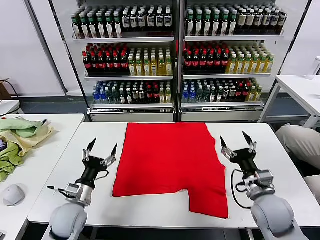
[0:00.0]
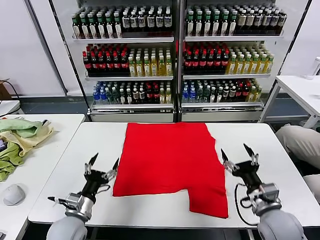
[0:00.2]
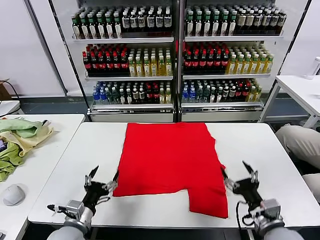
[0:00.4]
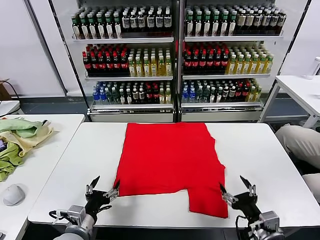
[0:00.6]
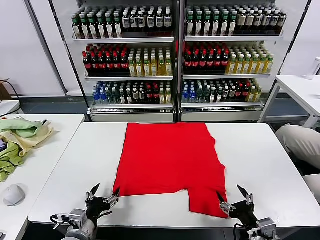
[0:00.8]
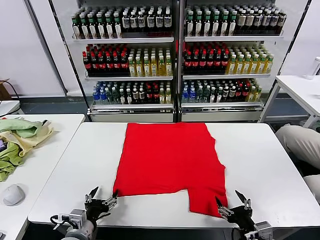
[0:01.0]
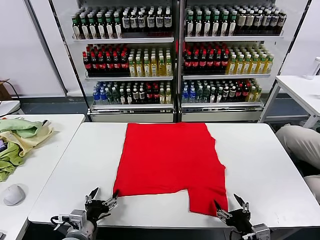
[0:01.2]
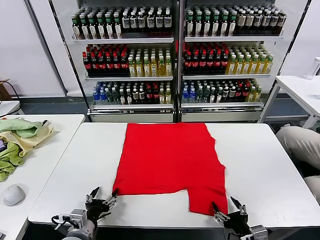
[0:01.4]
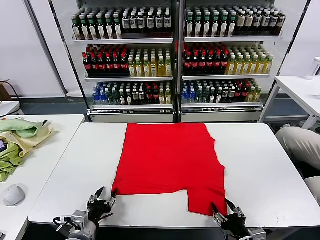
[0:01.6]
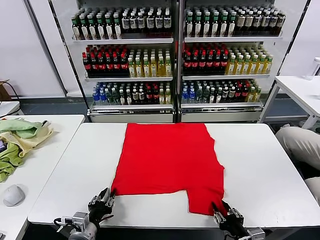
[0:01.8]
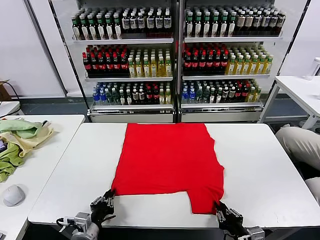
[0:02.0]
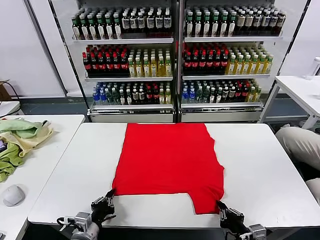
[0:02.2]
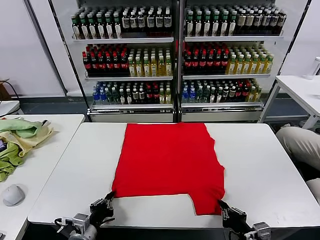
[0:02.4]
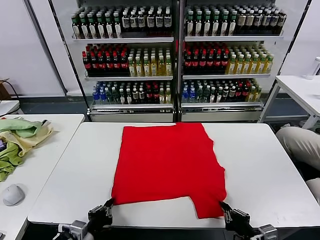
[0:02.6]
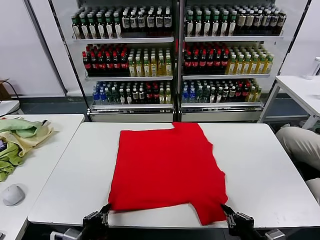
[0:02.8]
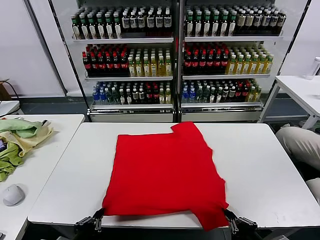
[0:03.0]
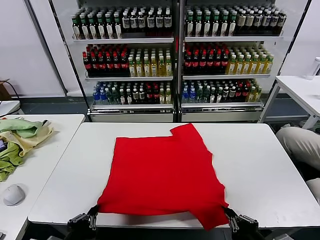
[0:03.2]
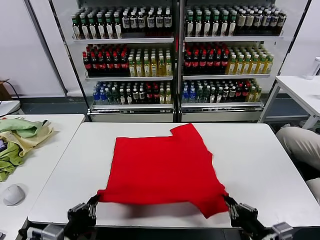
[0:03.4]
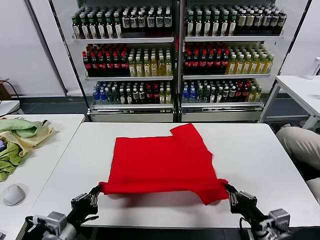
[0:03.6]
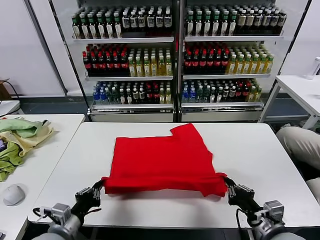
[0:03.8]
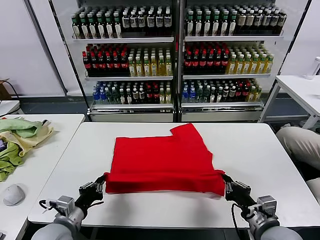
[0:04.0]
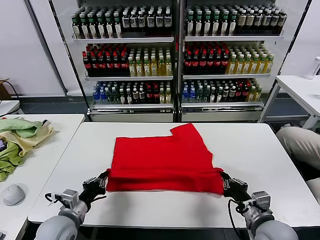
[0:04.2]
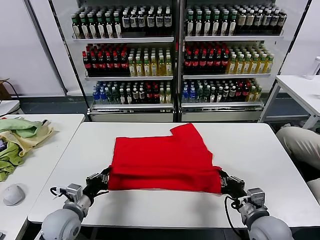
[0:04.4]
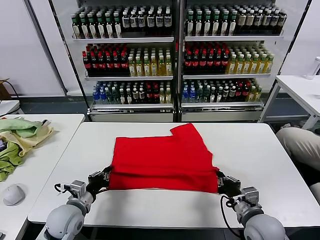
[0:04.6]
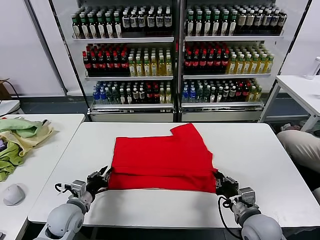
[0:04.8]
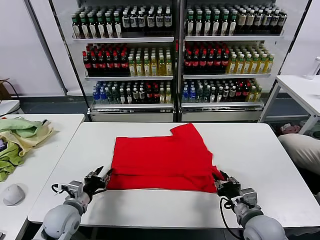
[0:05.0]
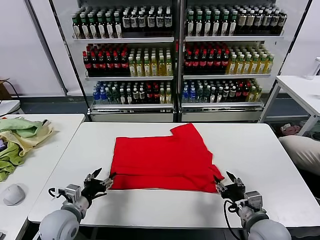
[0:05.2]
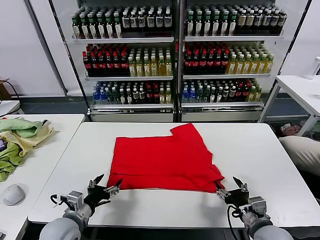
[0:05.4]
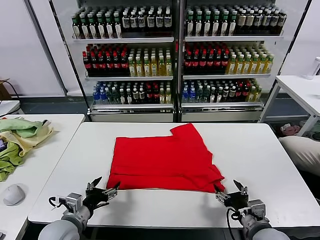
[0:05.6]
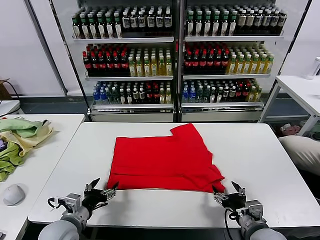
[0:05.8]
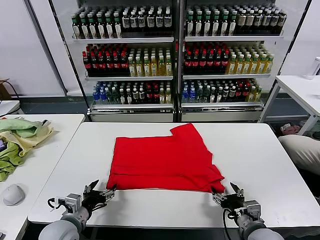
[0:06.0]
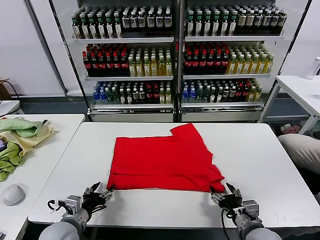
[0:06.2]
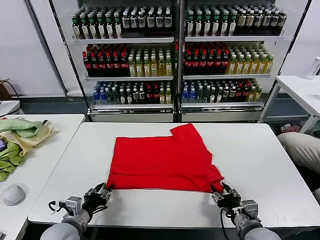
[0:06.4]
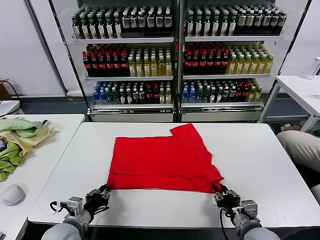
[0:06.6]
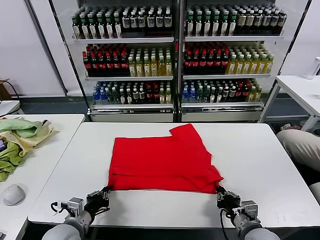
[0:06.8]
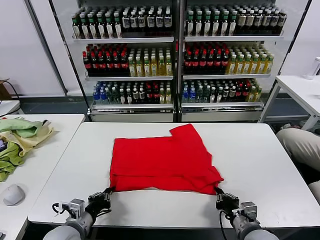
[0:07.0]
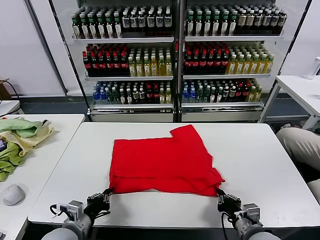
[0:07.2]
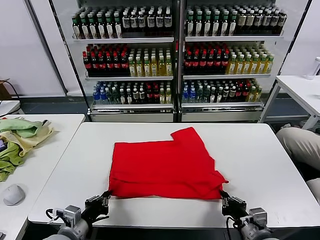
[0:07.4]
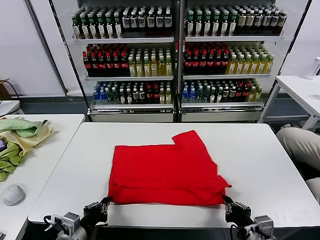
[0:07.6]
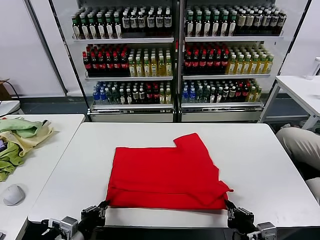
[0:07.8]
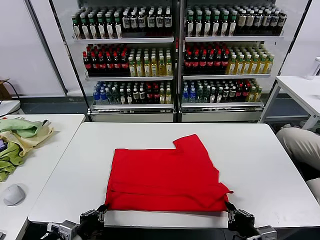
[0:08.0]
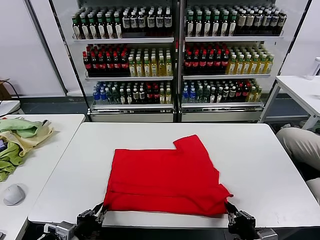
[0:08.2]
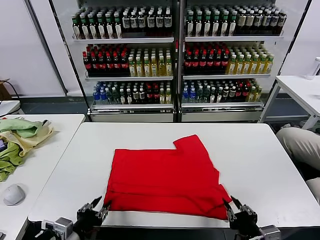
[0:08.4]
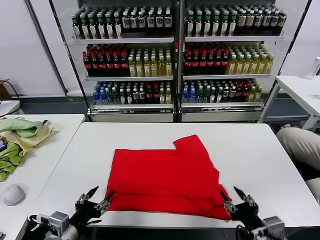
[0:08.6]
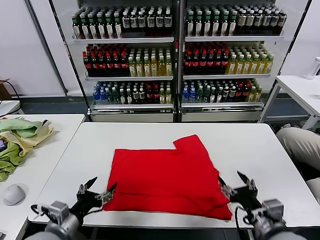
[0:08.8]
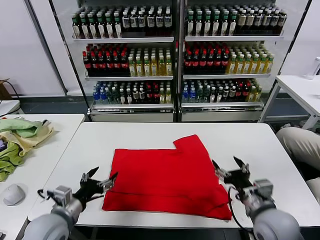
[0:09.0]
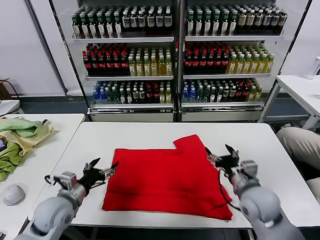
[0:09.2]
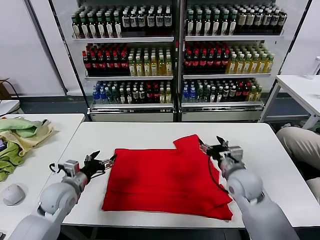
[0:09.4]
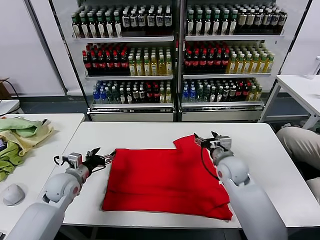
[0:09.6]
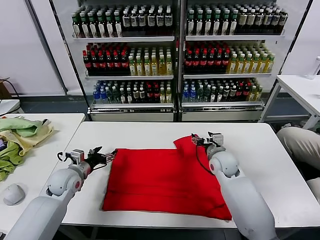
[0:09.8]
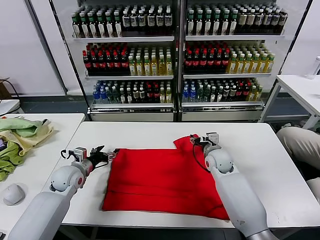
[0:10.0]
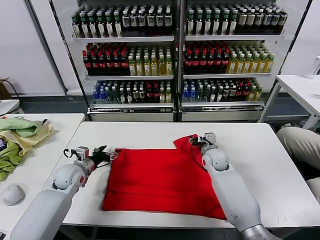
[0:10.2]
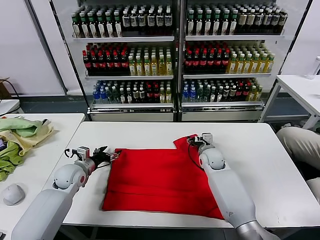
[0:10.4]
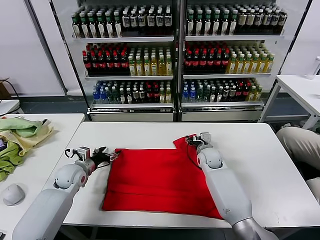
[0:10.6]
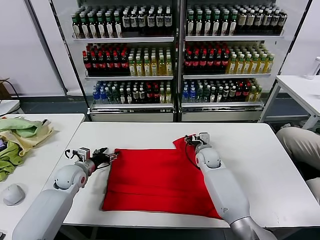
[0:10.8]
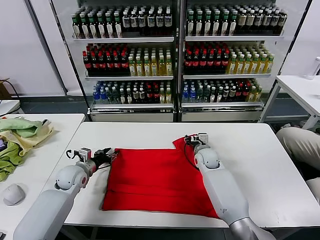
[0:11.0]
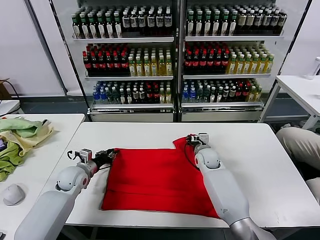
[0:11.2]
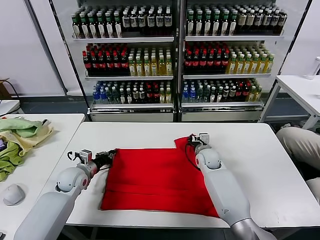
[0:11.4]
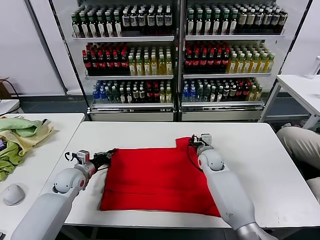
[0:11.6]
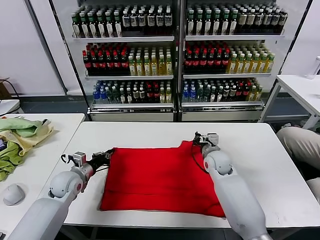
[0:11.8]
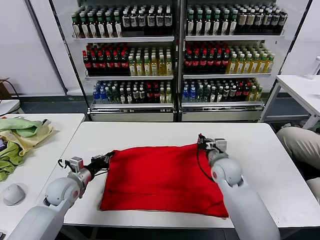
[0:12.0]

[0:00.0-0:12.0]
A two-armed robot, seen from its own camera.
Task of the whole recording: fold and organize the clothes.
Step, 0:00.0 to 0:02.2: use both grippers simultaneously to clamp the lower edge of the clothing fabric.
Step, 0:02.4 to 0:05.0: use both grippers to drag the lower edge of the fabric forward and fold it over the upper edge.
Step, 0:05.2 to 0:08.4: Drag the clothes downward with both gripper.
Step, 0:08.6 to 0:11.4: use both grippers simultaneously to clamp the upper edge of the clothing fabric.
0:01.6 to 0:03.0: The right gripper moves upward, about 10 cm, and closes up. The left gripper heads upward and backward, covering roughly 15 cm, and closes up.
0:03.0 to 0:04.4: Both grippers travel together forward, some 15 cm.
0:04.4 to 0:06.0: The left gripper opens up, while the right gripper opens its fingers.
0:06.0 to 0:07.6: Both grippers travel together backward, about 5 cm. The left gripper closes its fingers; the right gripper closes.
0:07.6 to 0:09.0: The left gripper shifts some 10 cm forward, and opens, while the right gripper moves forward, about 15 cm, and opens its fingers.
0:09.0 to 0:10.4: Both grippers travel together forward, approximately 20 cm.
0:10.4 to 0:12.0: The left gripper goes about 5 cm backward, and closes up. Meanwhile the right gripper travels backward and upward by roughly 15 cm, and closes its fingers.

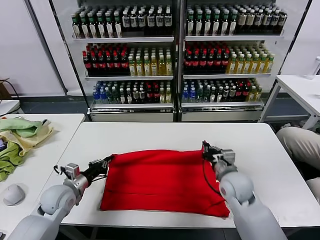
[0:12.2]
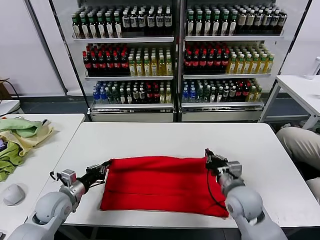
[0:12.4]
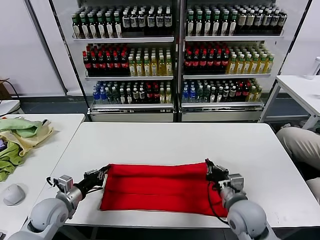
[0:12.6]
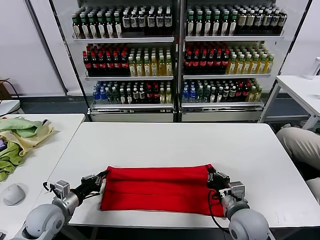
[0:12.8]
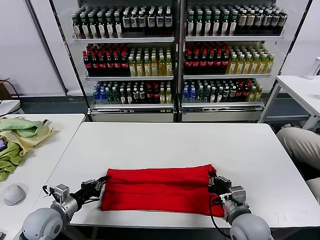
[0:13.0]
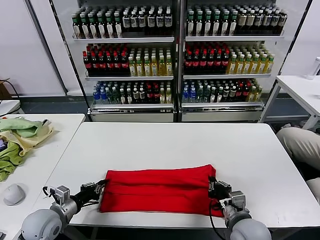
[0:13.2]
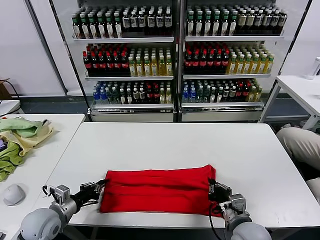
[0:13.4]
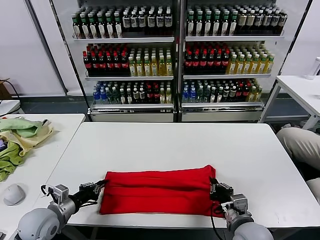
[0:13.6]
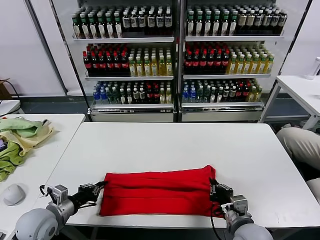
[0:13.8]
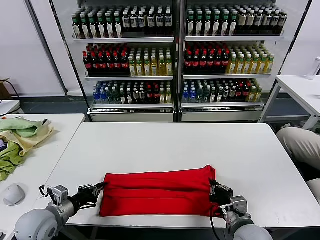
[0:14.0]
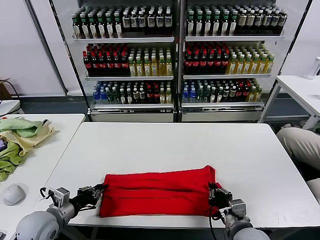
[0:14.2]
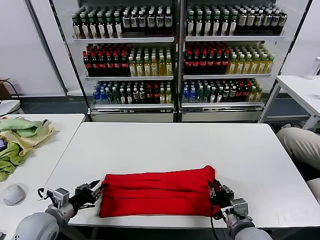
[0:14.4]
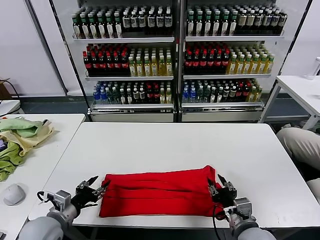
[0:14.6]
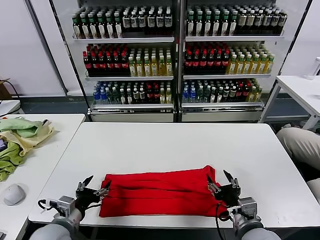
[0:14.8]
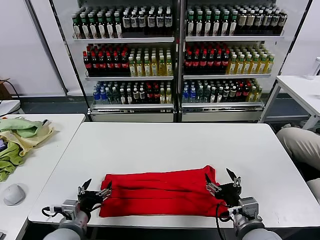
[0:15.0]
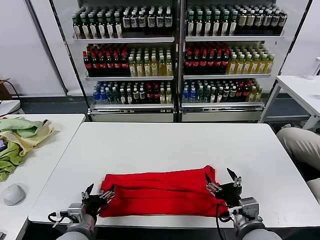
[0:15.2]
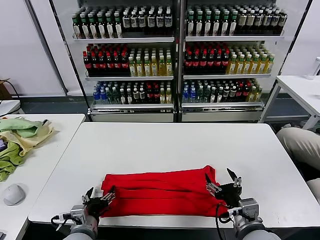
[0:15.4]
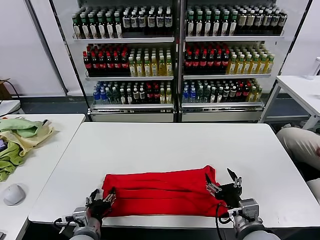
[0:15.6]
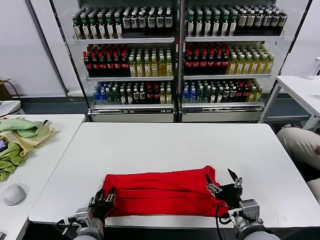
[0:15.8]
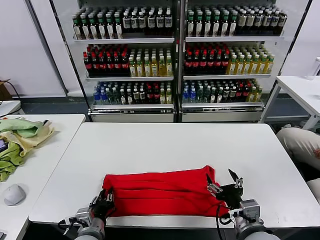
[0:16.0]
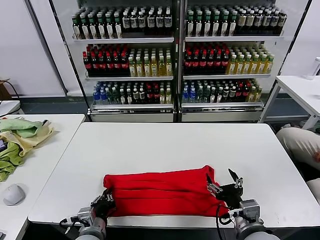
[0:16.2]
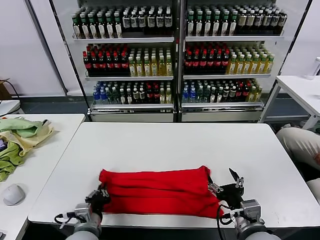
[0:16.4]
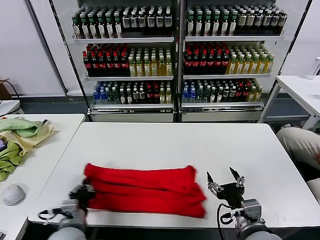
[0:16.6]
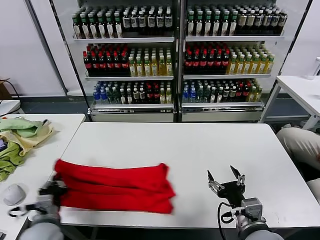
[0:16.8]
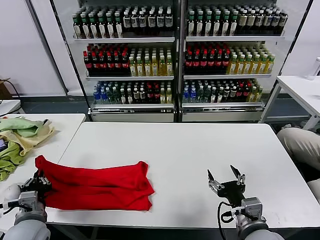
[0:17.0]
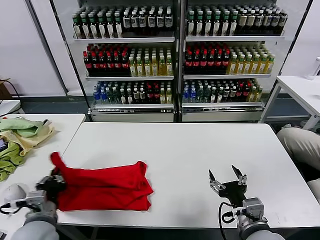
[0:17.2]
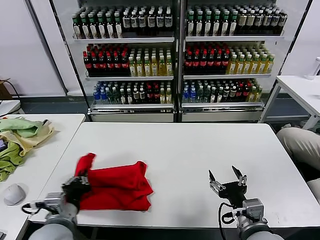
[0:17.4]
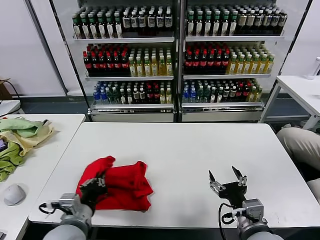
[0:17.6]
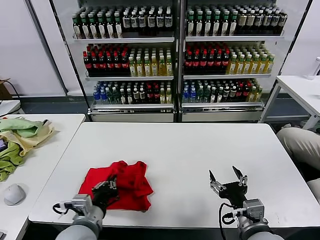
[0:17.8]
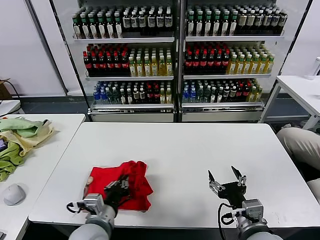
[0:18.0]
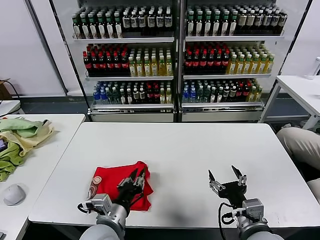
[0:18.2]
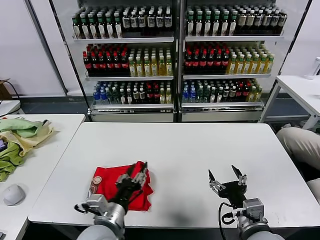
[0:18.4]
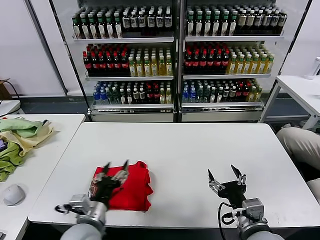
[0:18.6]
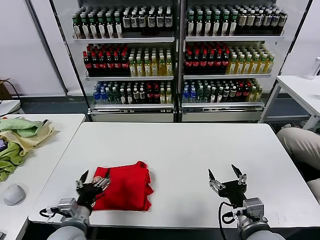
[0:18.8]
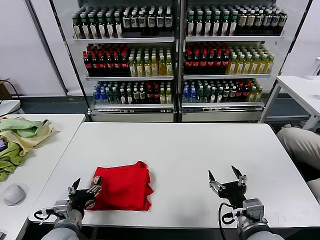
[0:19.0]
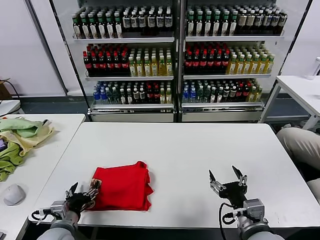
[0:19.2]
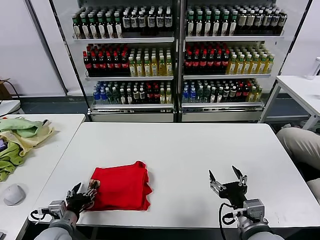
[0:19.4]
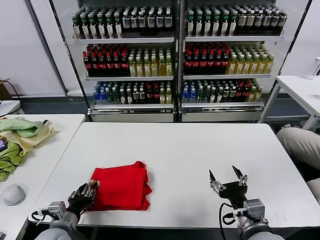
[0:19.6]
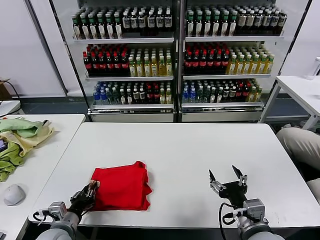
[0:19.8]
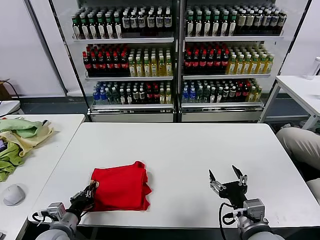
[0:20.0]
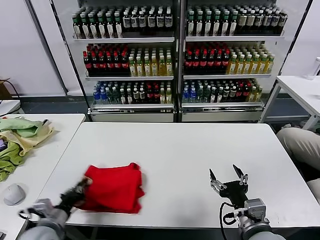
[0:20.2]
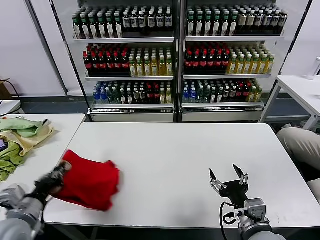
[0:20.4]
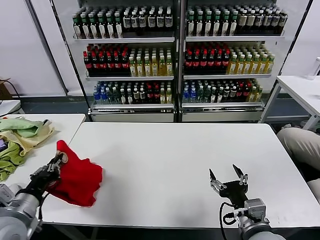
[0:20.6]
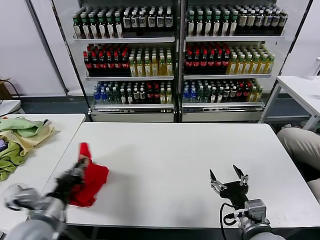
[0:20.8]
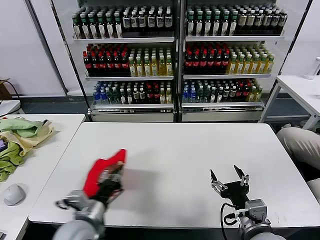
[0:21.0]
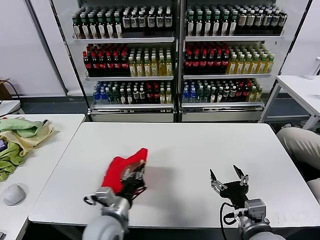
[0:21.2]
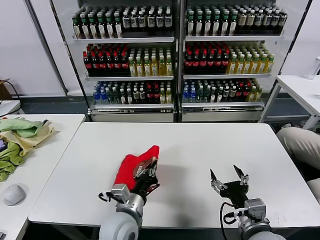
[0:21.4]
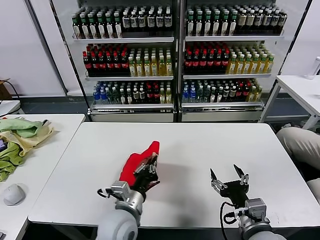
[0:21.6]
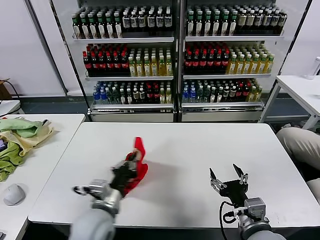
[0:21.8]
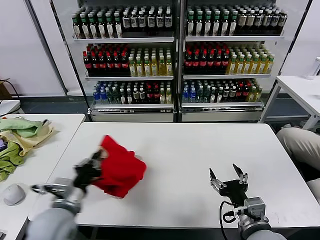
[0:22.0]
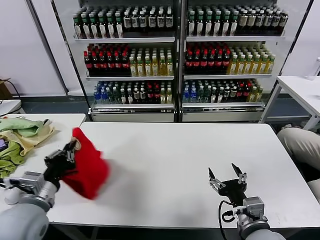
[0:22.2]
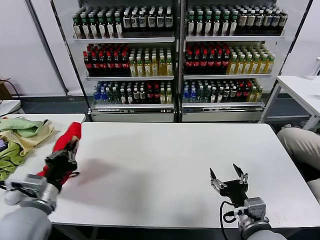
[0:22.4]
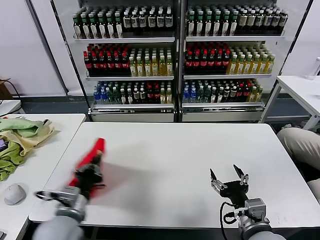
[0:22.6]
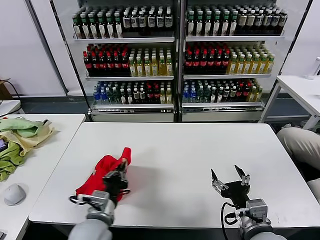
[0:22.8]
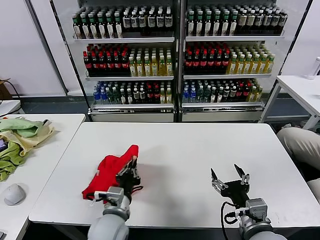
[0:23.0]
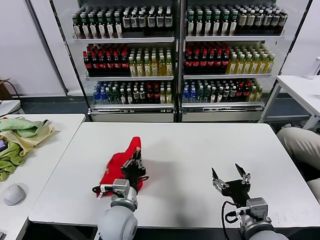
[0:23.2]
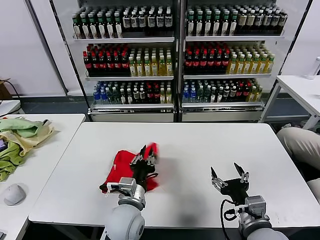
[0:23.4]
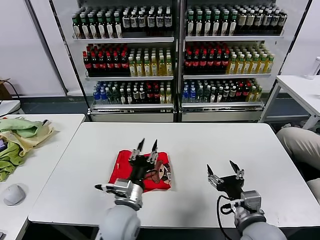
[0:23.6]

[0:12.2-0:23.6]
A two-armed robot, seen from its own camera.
Task of the whole recording: fold and organize the clothes.
Step, 0:12.2 to 0:14.4: use both grippers to drag the upper edge of the fabric backward and fold it over the lower edge.
Step, 0:14.6 to 0:16.2: use the left gripper to clamp the left edge of the fabric.
Step, 0:16.4 to 0:18.2: use the left gripper to drag the left edge of the fabric to the left and folds it over the right edge.
Step, 0:18.4 to 0:23.4: Flip the folded clothes over with left gripper.
0:12.2 to 0:13.6: The left gripper travels backward by about 10 cm; the right gripper shifts roughly 10 cm backward.
0:13.6 to 0:15.0: The right gripper moves about 5 cm, and opens its fingers, while the left gripper goes approximately 10 cm to the right and backward, and opens its fingers.
0:15.0 to 0:16.4: The left gripper closes up.
0:16.4 to 0:17.8: The left gripper goes approximately 5 cm upward, and reaches some 15 cm to the left, then returns.
0:17.8 to 0:19.4: The left gripper moves to the left and downward, about 15 cm, and opens its fingers.
0:19.4 to 0:20.8: The left gripper is displaced upward by some 10 cm, and closes its fingers.
0:20.8 to 0:22.2: The left gripper moves about 20 cm to the right and comes back.
0:22.2 to 0:23.6: The left gripper heads to the right, covering some 20 cm, and opens up.
